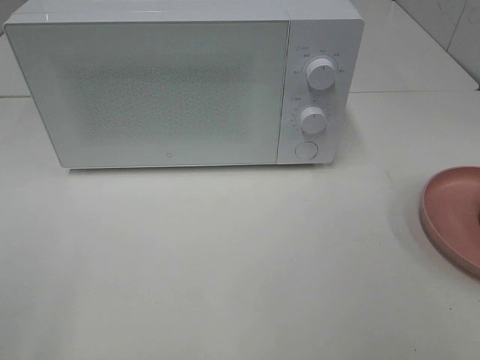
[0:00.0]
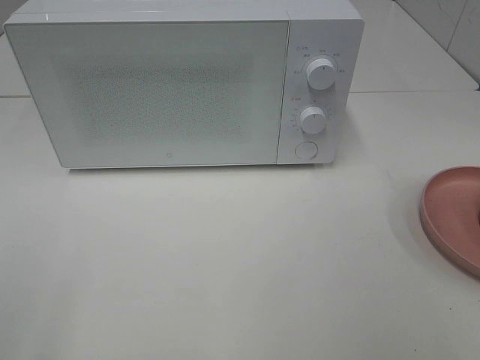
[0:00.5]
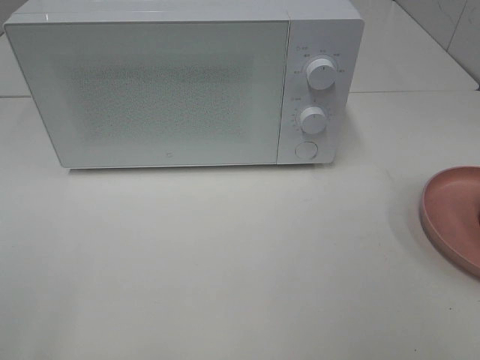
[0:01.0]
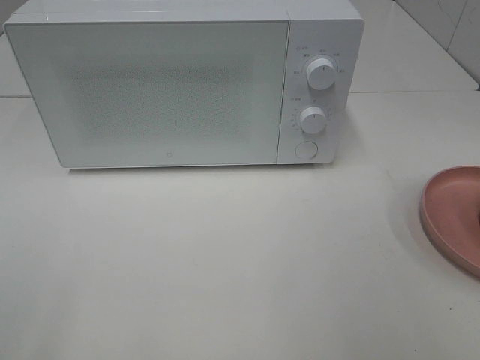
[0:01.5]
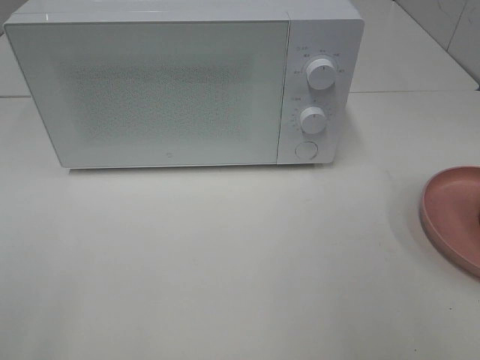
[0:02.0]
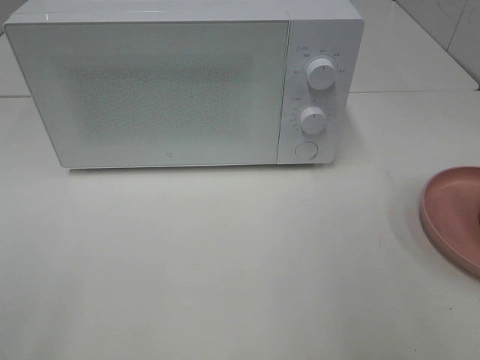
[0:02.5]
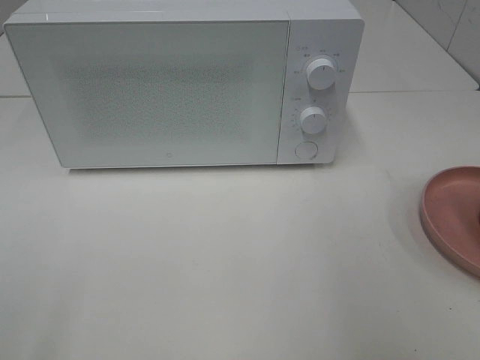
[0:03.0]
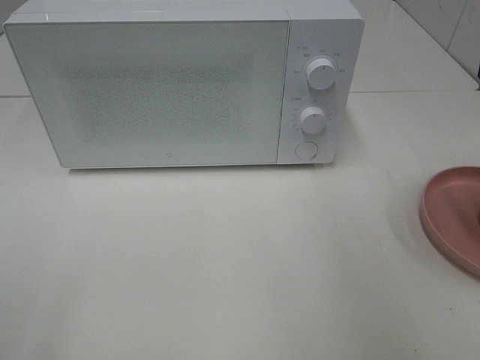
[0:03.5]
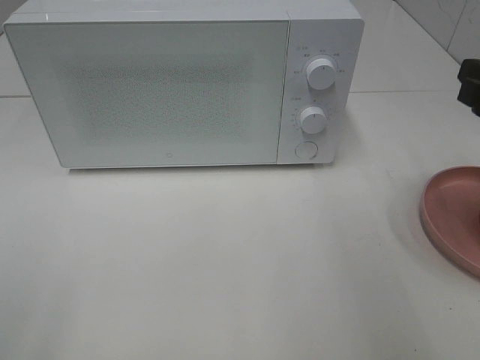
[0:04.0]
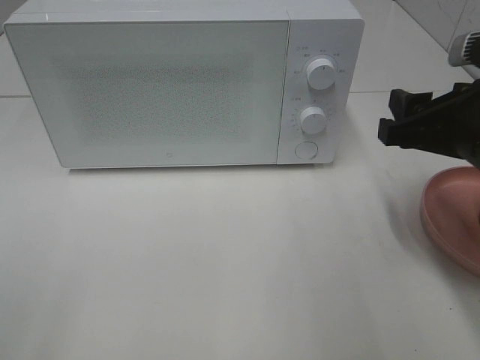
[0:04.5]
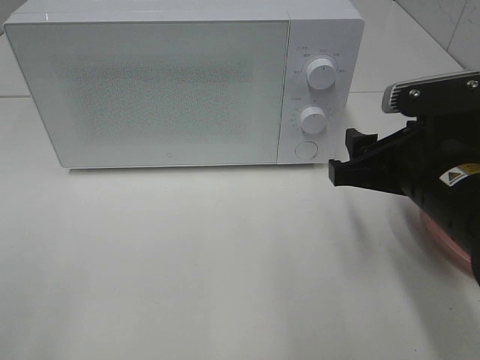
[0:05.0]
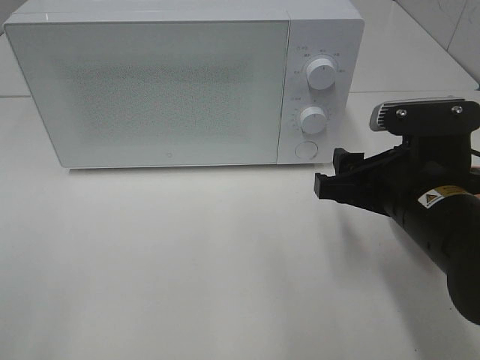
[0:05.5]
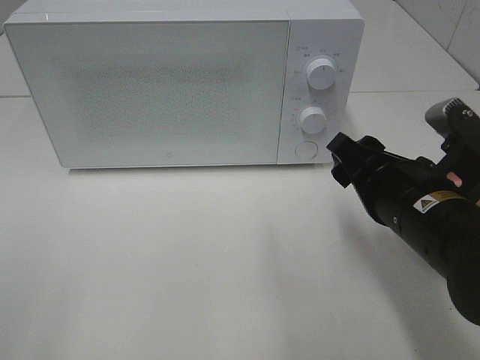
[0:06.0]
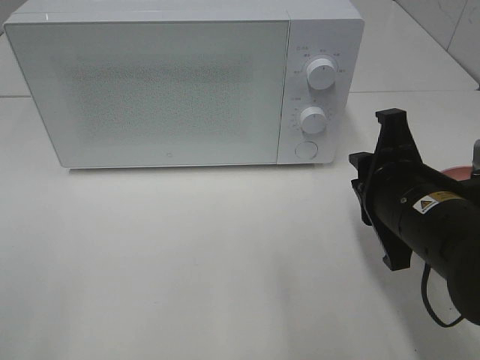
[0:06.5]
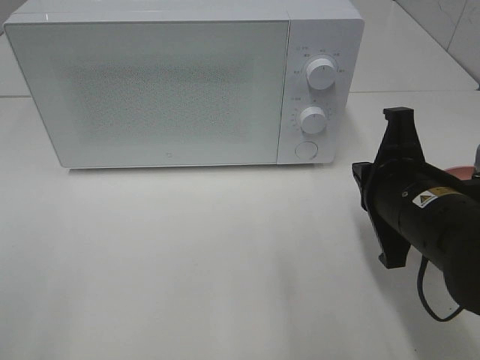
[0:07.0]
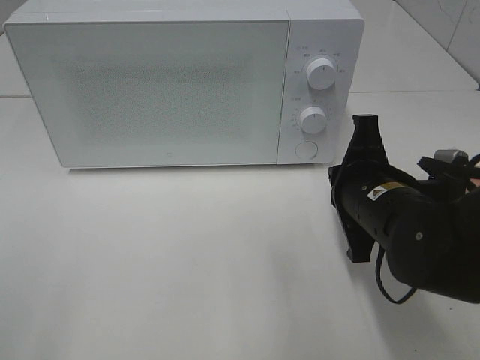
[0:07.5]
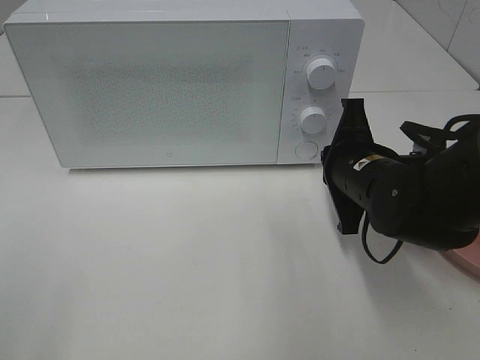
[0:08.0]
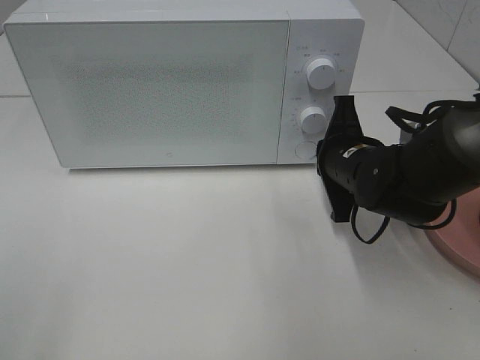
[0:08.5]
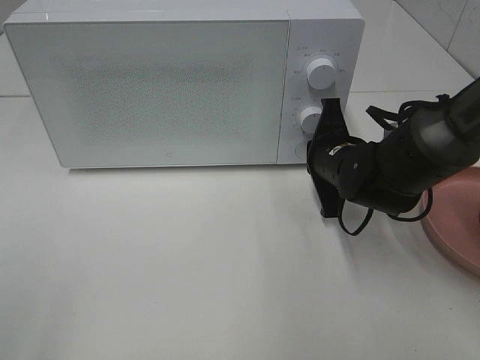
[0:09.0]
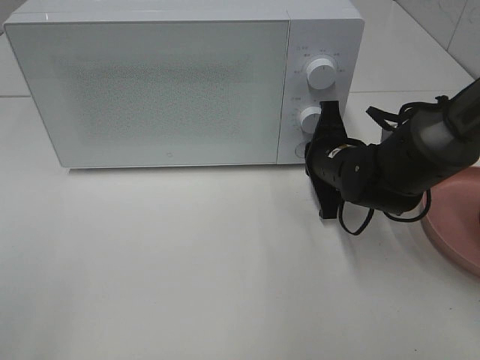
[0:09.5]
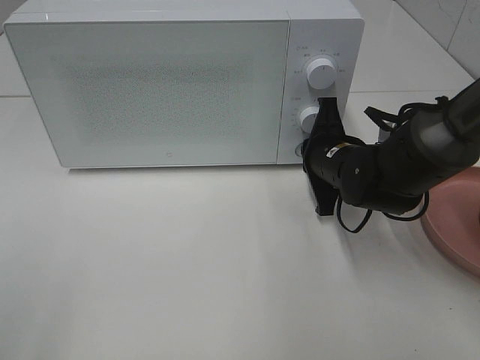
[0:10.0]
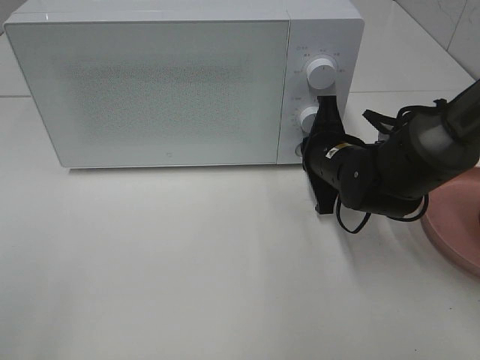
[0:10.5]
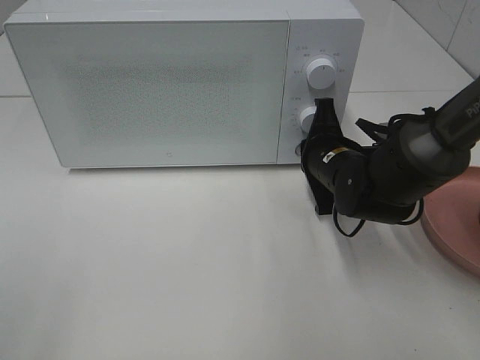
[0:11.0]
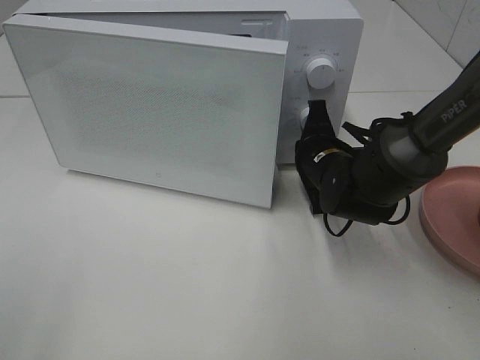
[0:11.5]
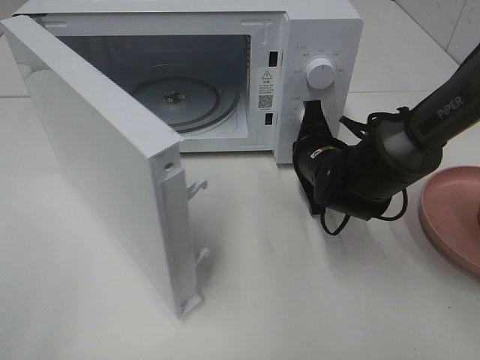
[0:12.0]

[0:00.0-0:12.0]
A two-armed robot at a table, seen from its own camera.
Task of the whole recording: Heat the burger.
0:02.0 to 0:04.0: The right gripper travels forward and downward by roughly 15 cm.
0:04.0 to 0:06.0: The right gripper goes some 15 cm to the left and downward.
0:06.0 to 0:08.0: The right gripper travels forward by approximately 10 cm, and closes.
0:08.0 to 0:10.0: The right gripper shifts some 5 cm forward.

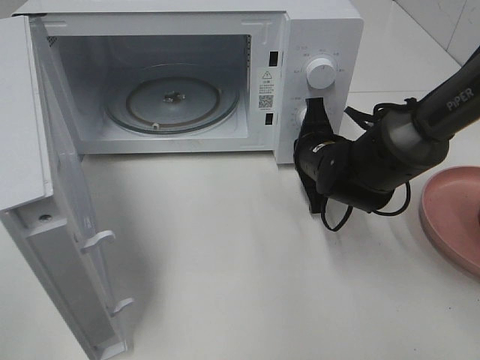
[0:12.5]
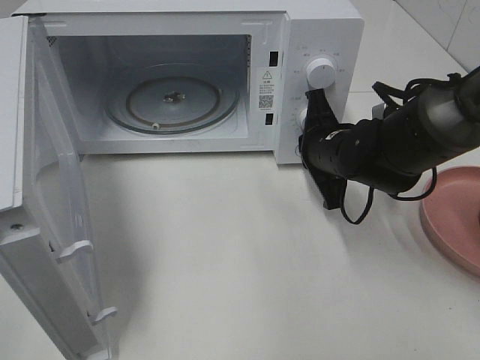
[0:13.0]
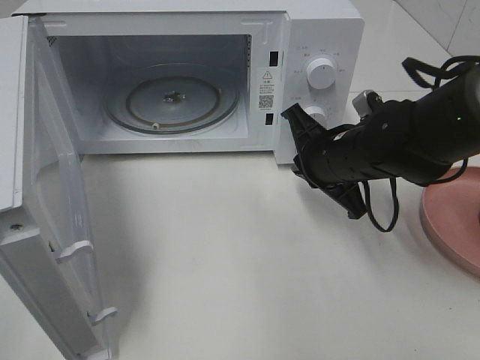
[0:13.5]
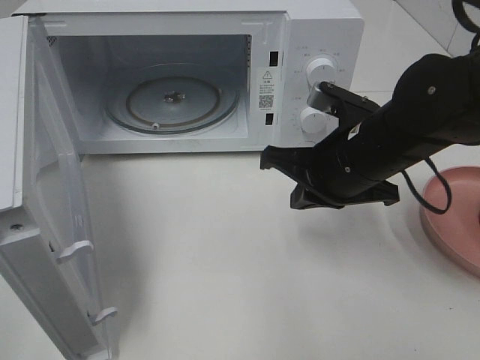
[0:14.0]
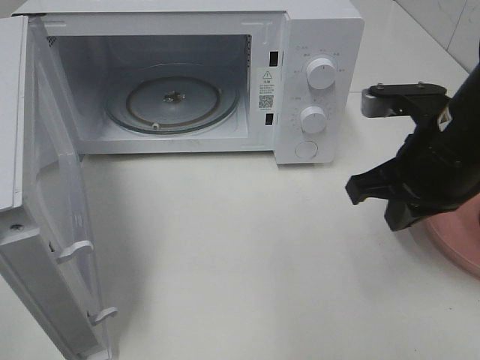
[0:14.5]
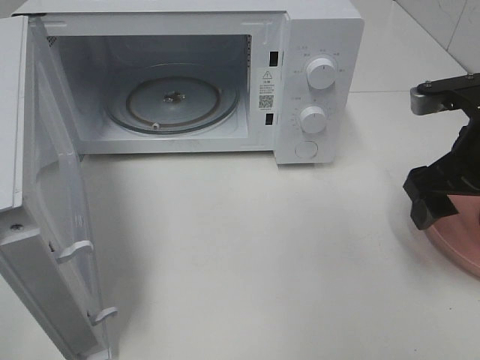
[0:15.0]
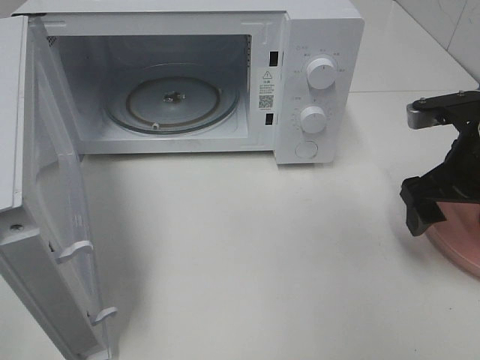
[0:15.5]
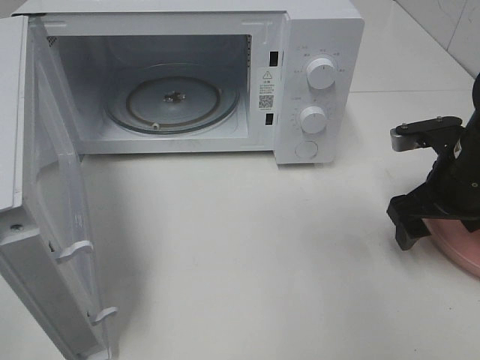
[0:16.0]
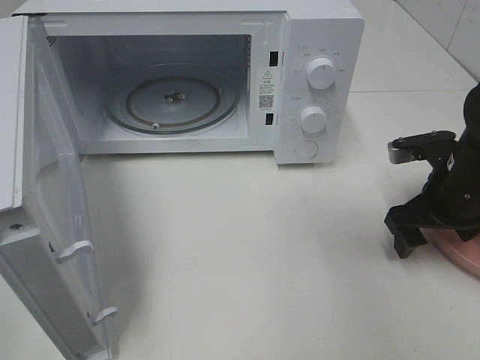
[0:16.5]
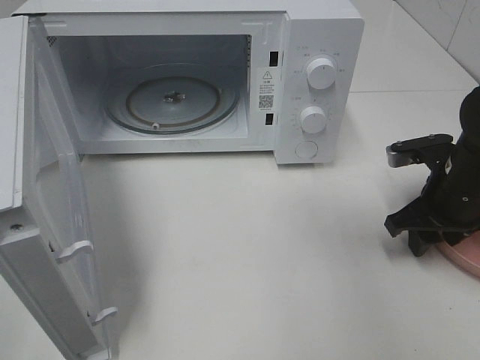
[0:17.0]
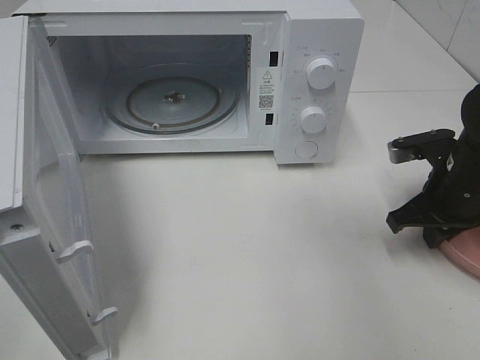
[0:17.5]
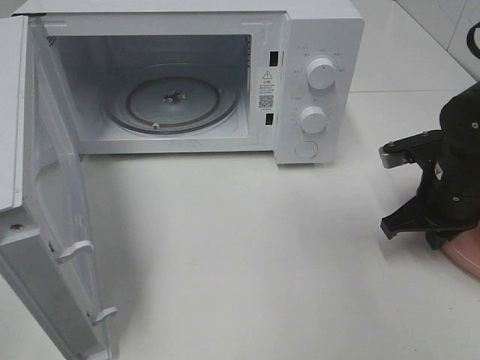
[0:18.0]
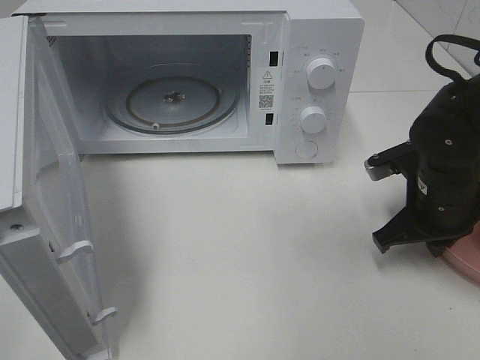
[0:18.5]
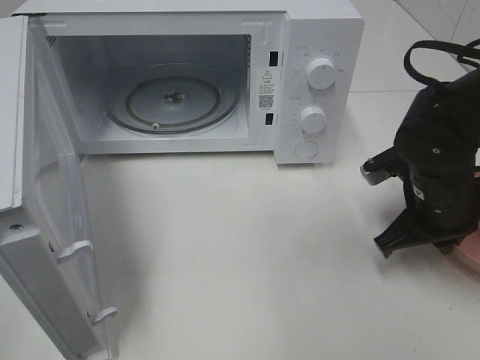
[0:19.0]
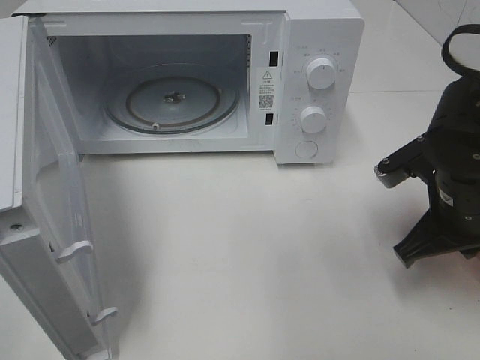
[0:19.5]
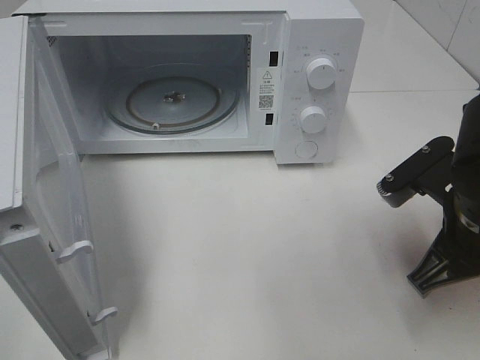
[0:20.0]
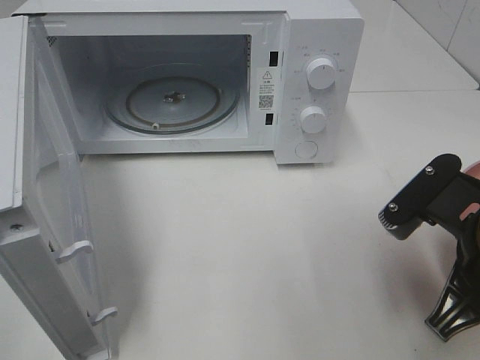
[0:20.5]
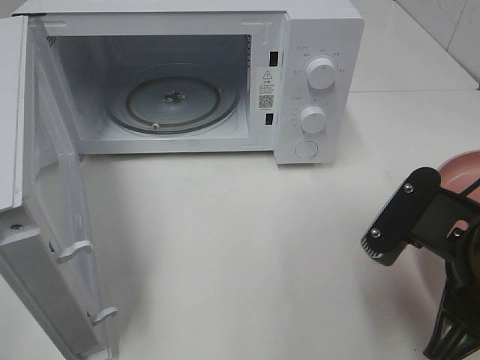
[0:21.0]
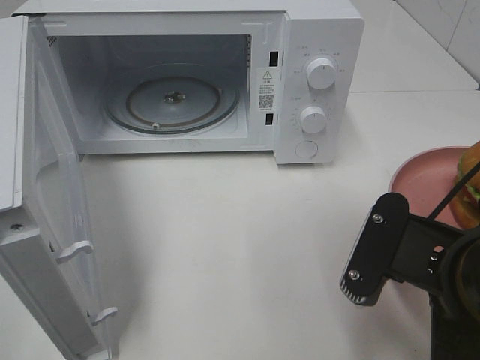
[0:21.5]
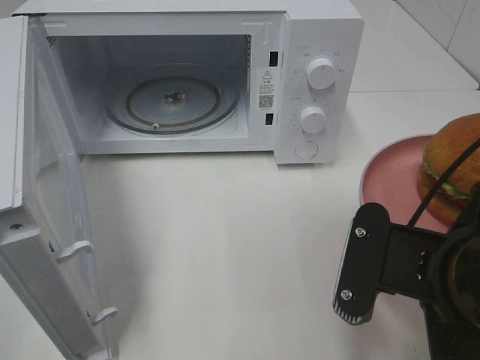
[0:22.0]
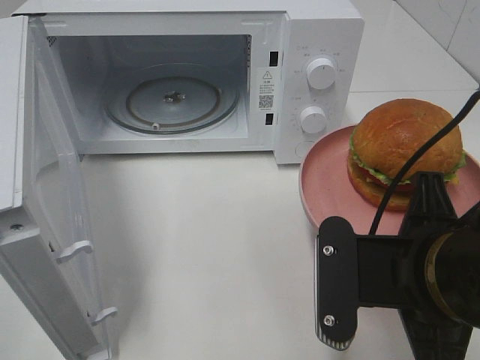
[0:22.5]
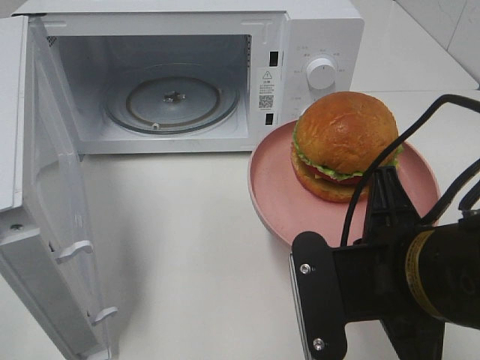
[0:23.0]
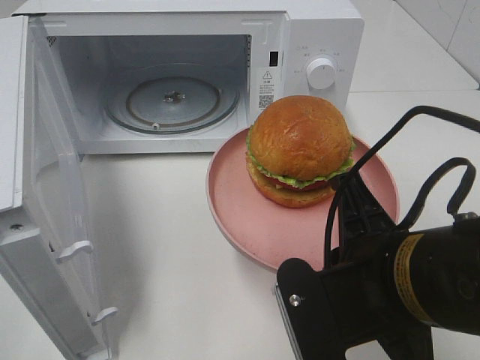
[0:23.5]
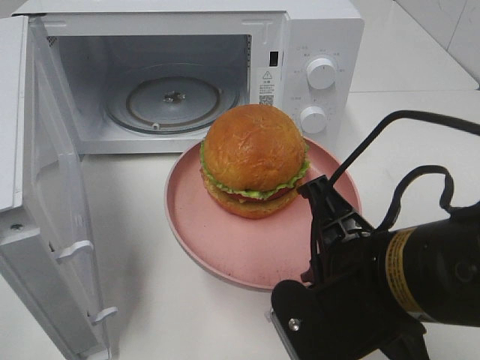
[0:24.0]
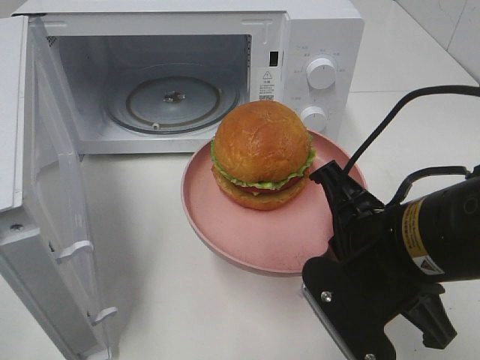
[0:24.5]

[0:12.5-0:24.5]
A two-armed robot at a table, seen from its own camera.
Task of the whole recording: Heat the burger.
Step, 0:13.5 to 0:17.5: Right hand: grab the plate with the hamburger.
0:12.5 to 0:14.5: The right gripper heads upward, backward and to the right, covering some 20 cm.
0:14.5 to 0:16.5: The right gripper shifts approximately 10 cm downward and to the right, and opens up.
0:16.5 to 0:18.5: The right gripper closes up.
0:18.5 to 0:20.5: The right gripper goes some 15 cm backward and upward.
0:20.5 to 0:22.5: The right gripper goes roughly 5 cm to the left.

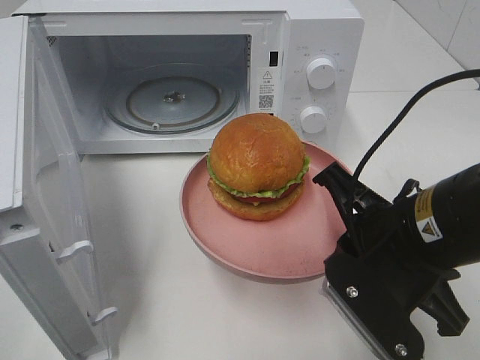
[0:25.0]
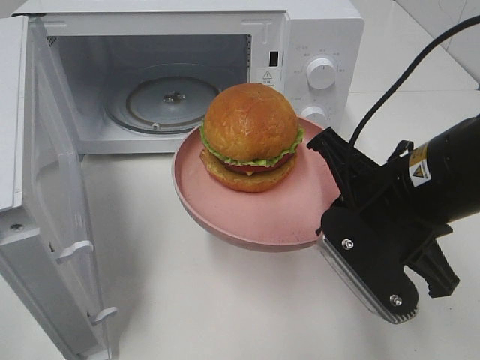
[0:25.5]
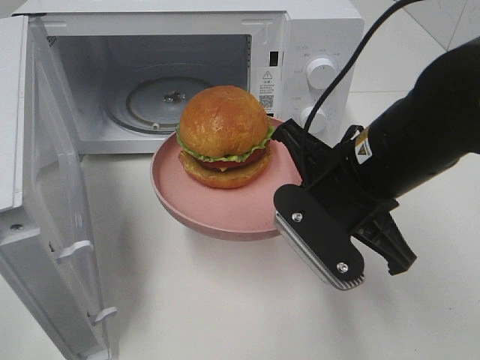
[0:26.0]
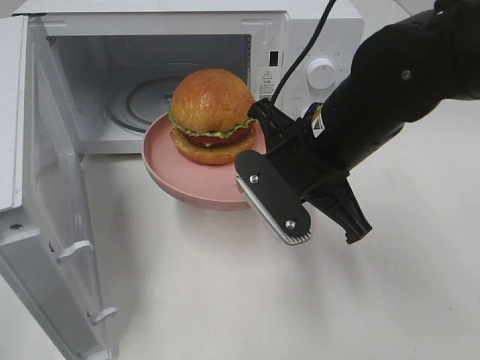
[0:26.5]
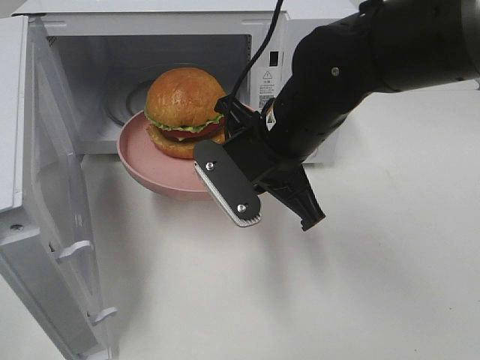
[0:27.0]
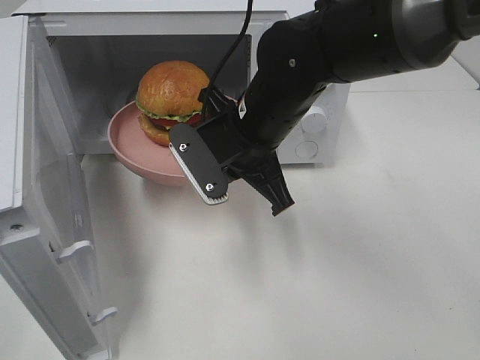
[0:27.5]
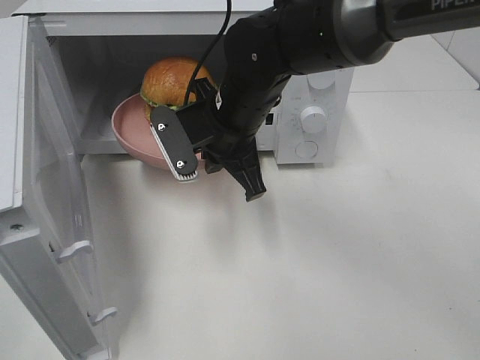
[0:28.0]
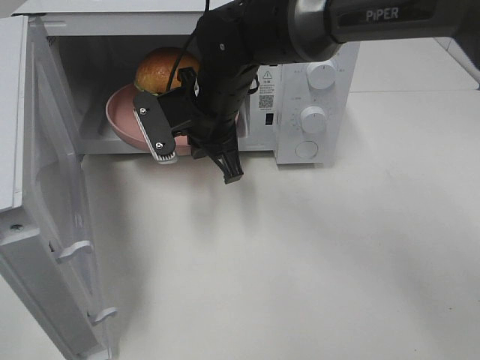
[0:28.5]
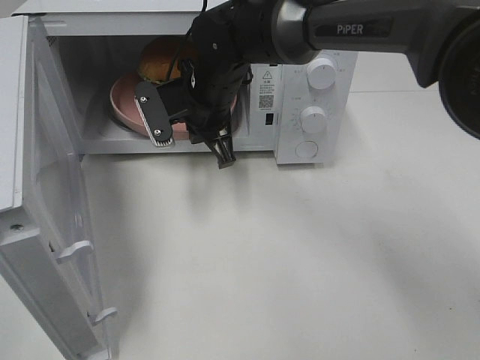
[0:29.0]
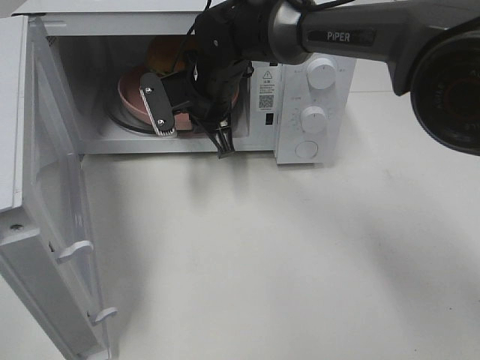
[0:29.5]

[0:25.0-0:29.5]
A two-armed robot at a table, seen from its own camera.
Task of the whole recording: Heat the burger.
0:25.0 to 0:27.0: The right gripper is displaced forward and to the left by some 15 cm.
0:27.0 to 0:29.5: The right gripper goes roughly 15 cm forward and to the left.
